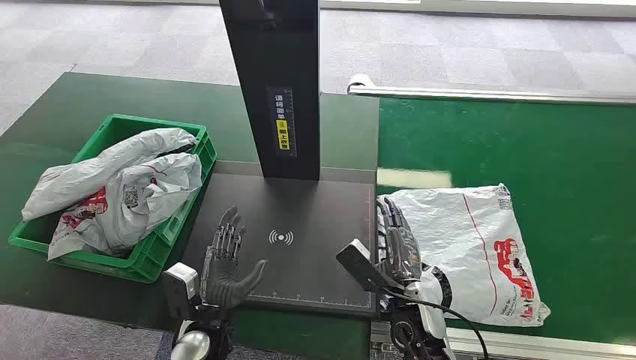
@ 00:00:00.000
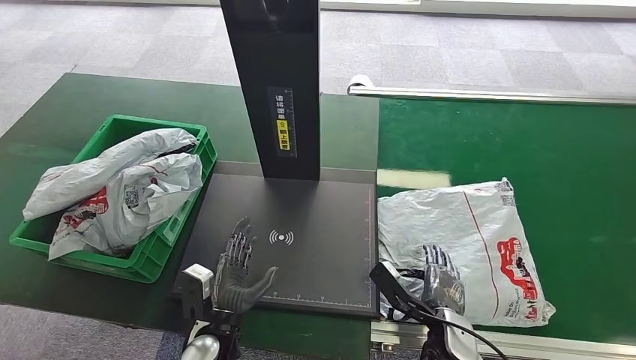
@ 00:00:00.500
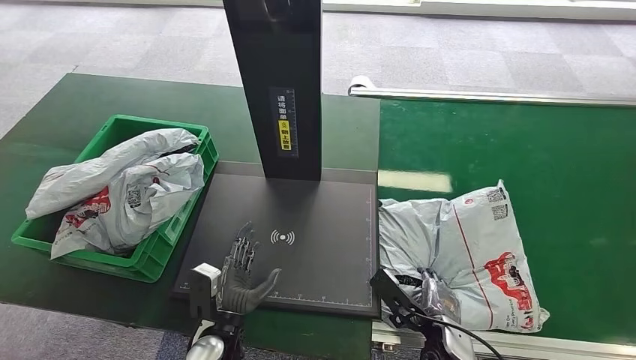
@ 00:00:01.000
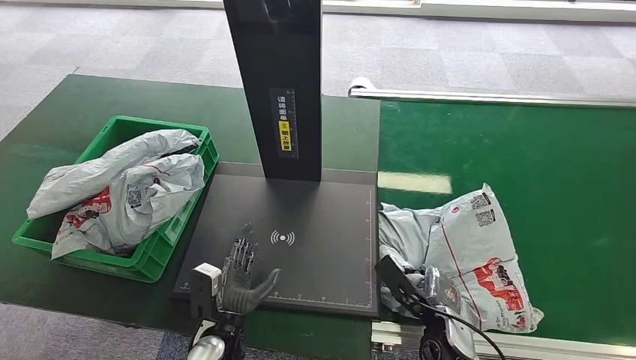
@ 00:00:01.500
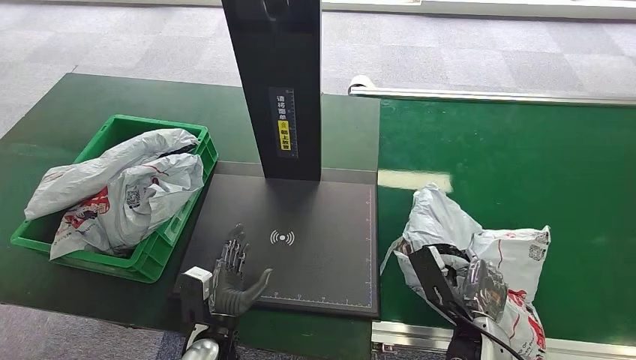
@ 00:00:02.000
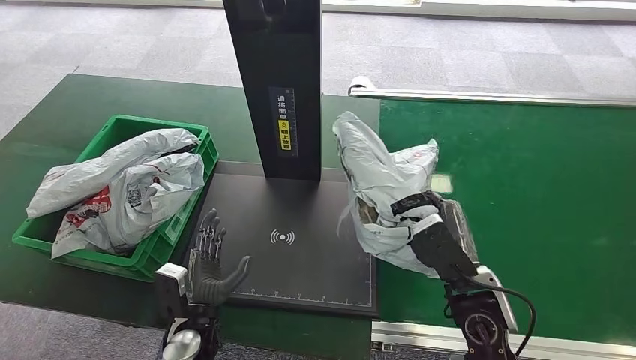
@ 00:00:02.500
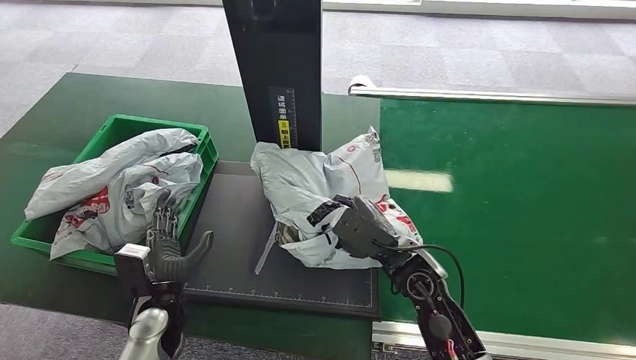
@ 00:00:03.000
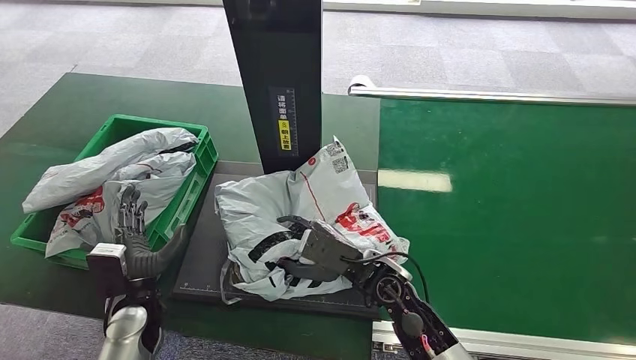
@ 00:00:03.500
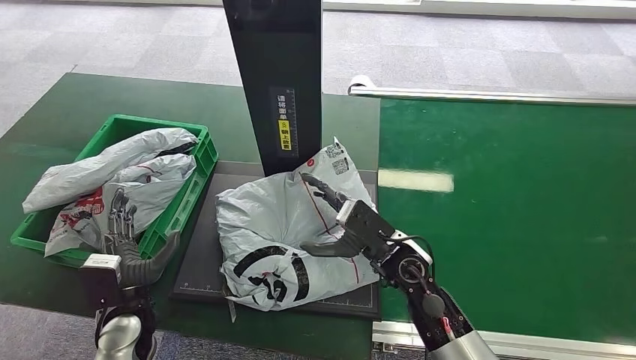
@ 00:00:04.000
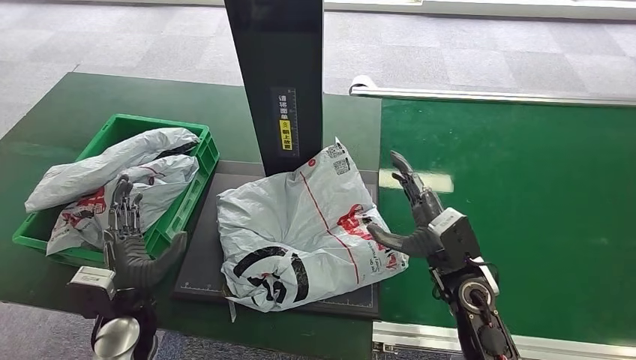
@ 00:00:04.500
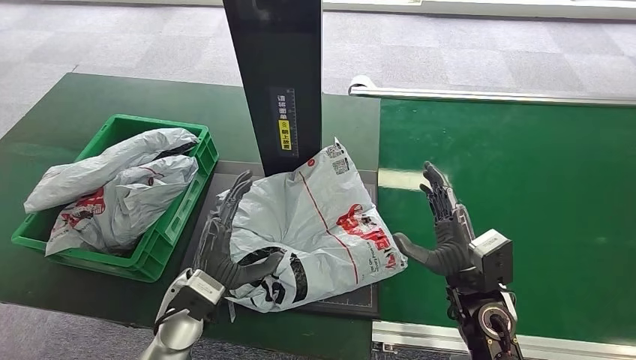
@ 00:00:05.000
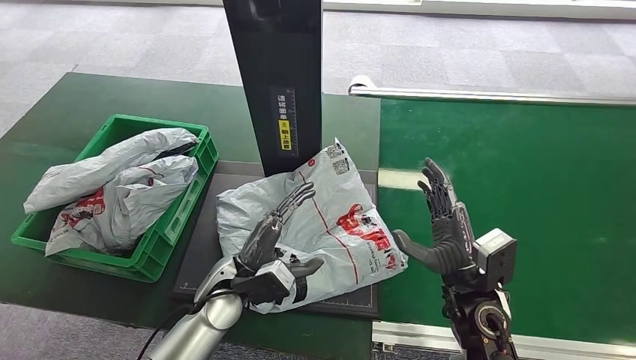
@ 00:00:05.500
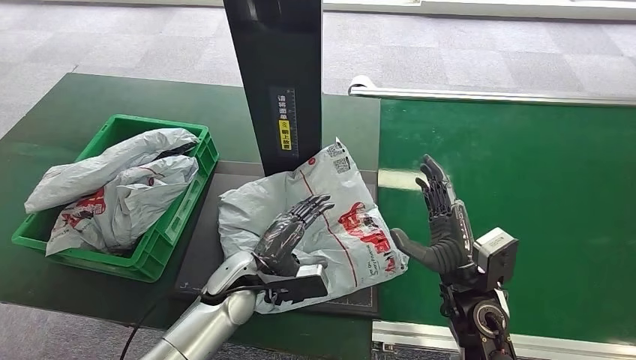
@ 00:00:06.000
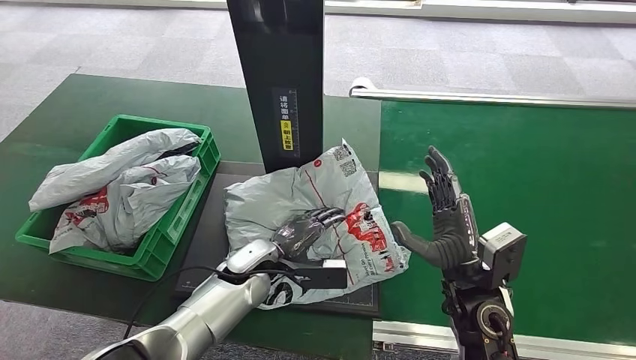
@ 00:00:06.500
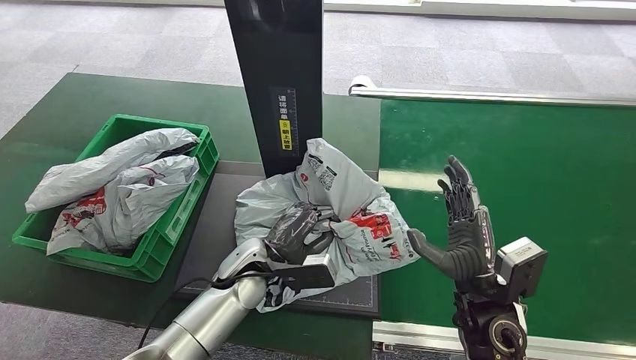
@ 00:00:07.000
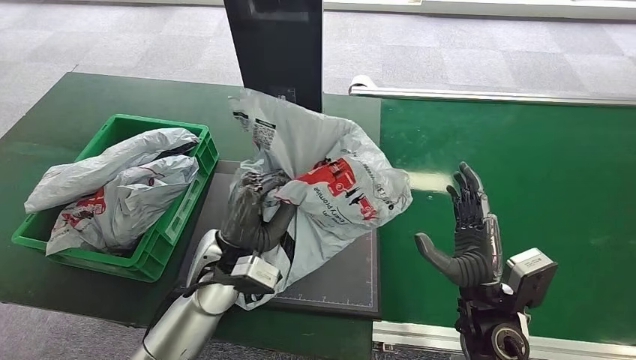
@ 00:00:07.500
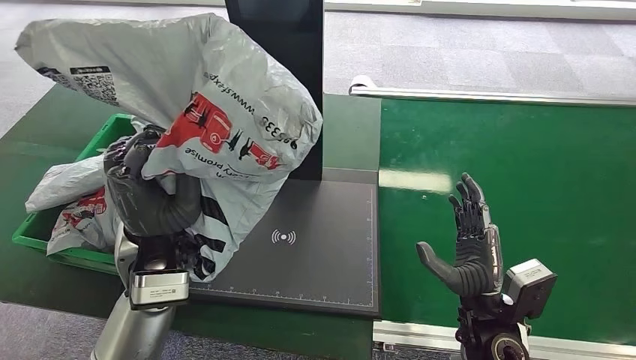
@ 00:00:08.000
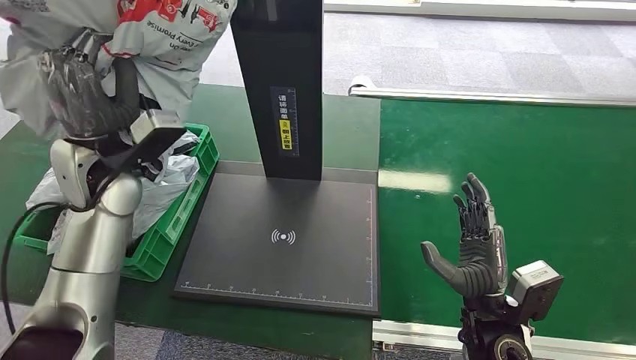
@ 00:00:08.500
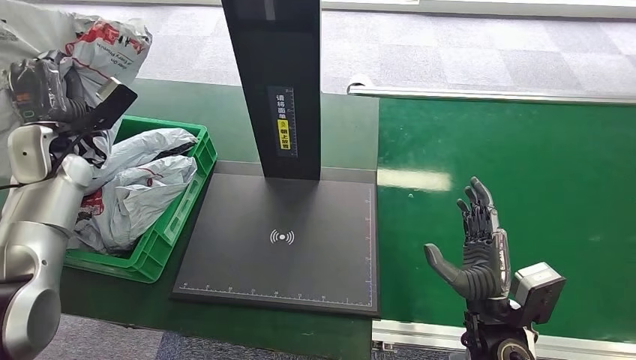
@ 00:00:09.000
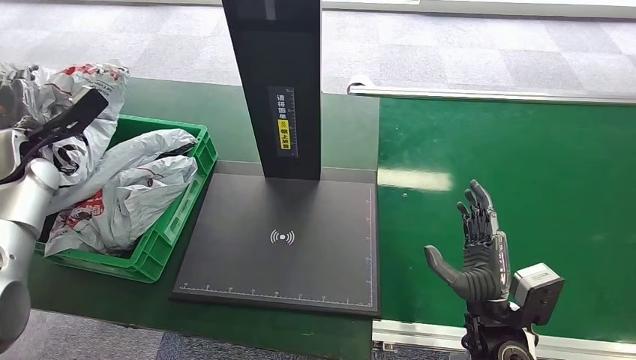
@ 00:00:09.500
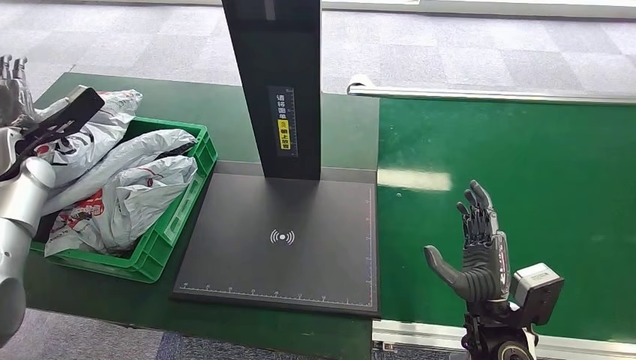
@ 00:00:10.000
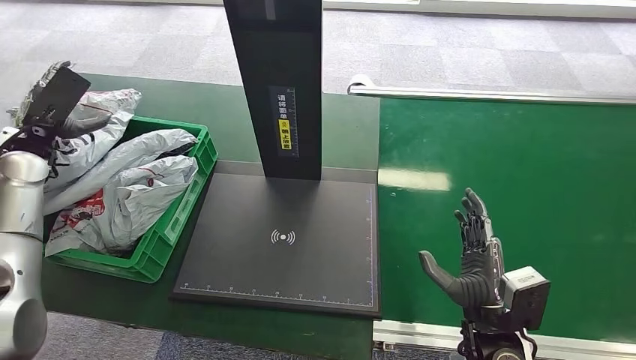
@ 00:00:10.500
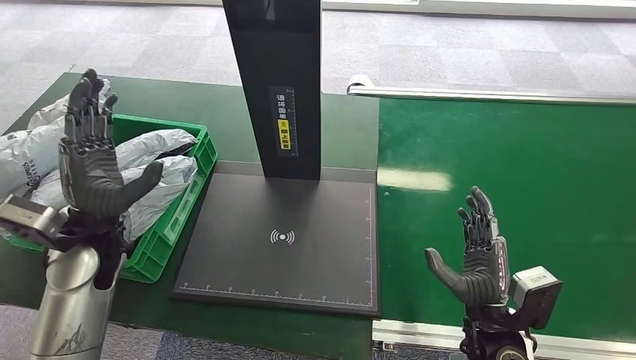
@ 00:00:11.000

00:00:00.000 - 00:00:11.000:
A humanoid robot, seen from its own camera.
Step, 00:00:00.000 - 00:00:02.500: Pick up the package from the conveyor belt.
Step, 00:00:03.000 - 00:00:03.500: Place the package onto the inbound machine.
Step, 00:00:04.000 - 00:00:07.500: Pick up the package from the inbound machine.
Step, 00:00:08.000 - 00:00:11.000: Place the package into the parcel locker.
00:00:03.500 - 00:00:05.500: The two hands go some 15 cm to the right.
00:00:05.500 - 00:00:07.500: The left hand heads upward, covering approximately 5 cm.
00:00:09.000 - 00:00:11.000: The left hand moves to the right and backward, about 15 cm.
